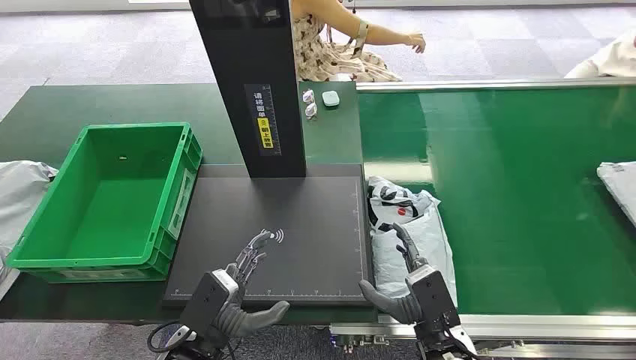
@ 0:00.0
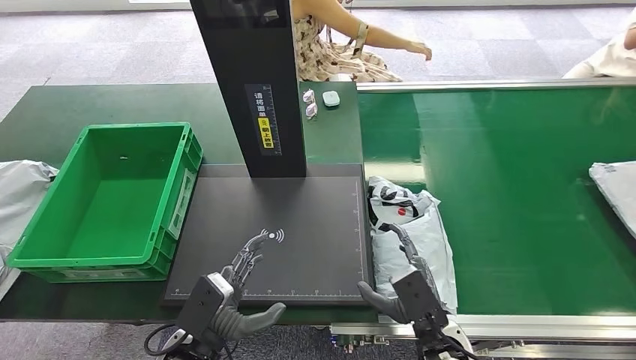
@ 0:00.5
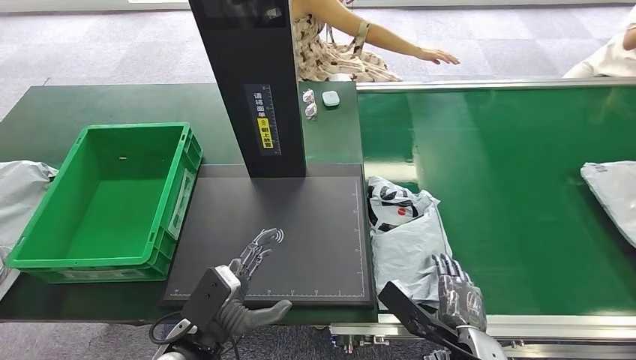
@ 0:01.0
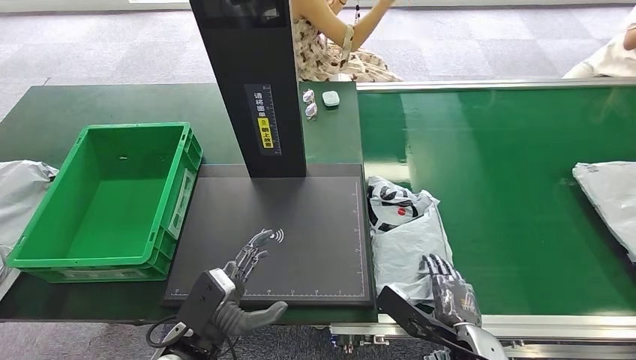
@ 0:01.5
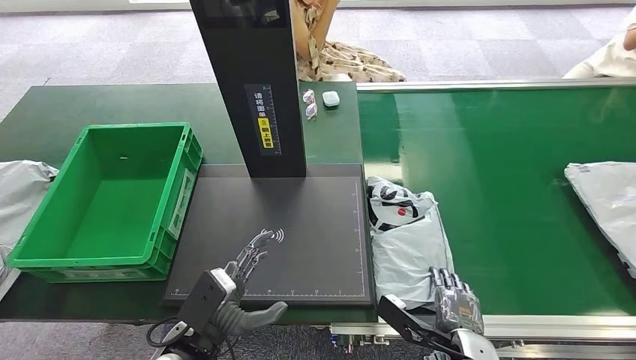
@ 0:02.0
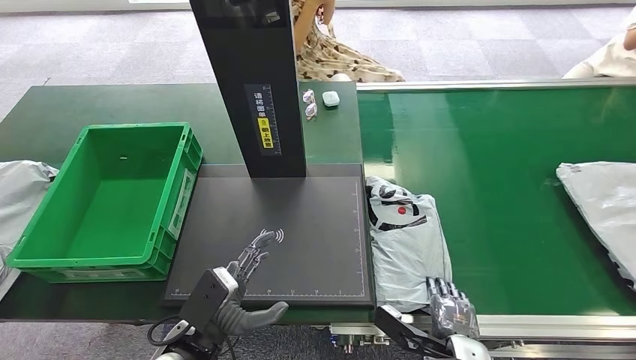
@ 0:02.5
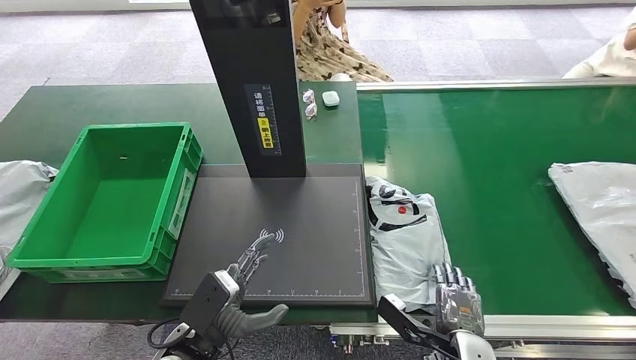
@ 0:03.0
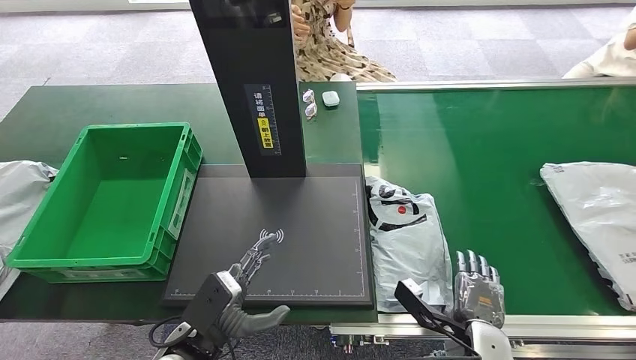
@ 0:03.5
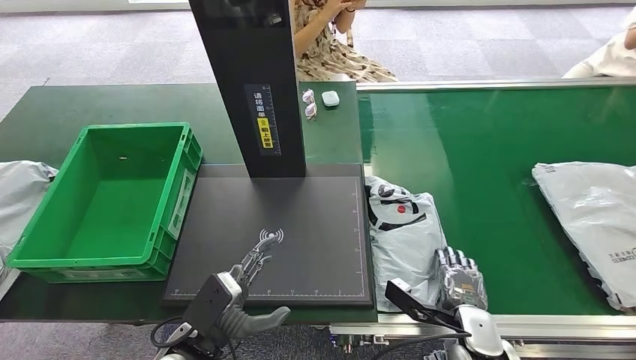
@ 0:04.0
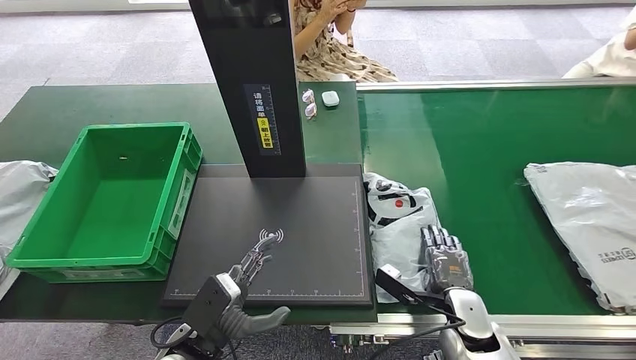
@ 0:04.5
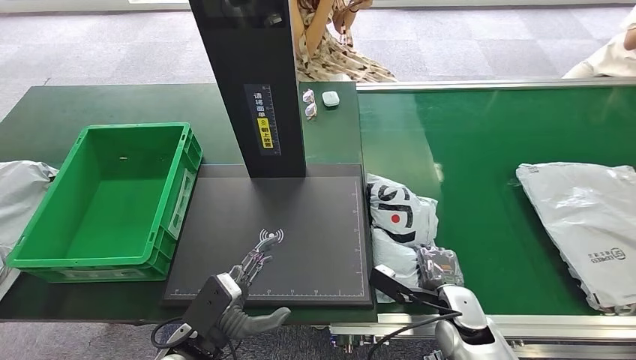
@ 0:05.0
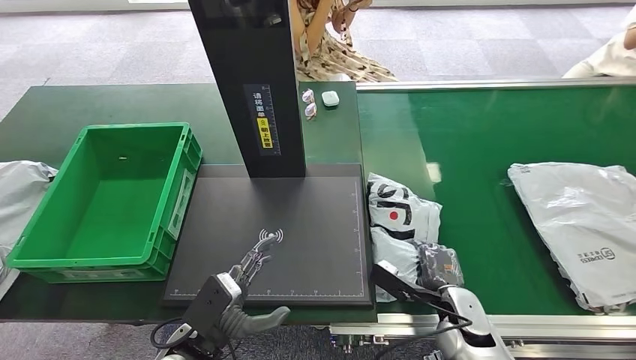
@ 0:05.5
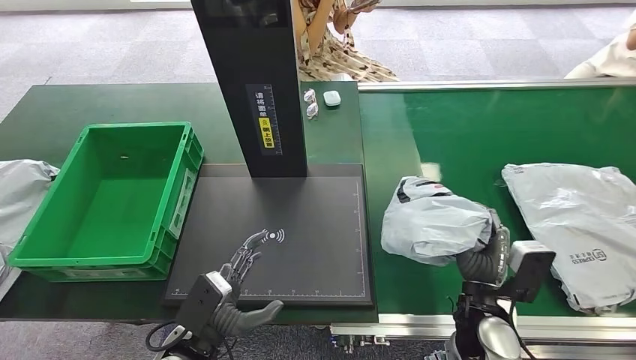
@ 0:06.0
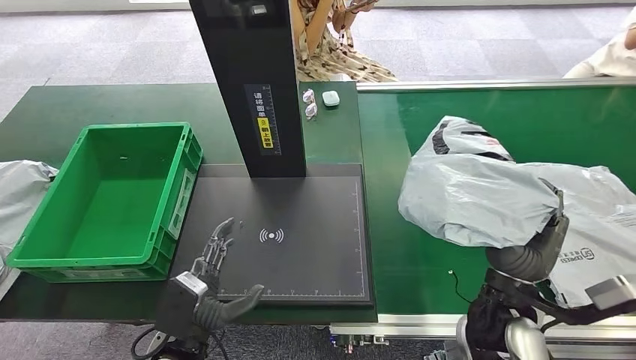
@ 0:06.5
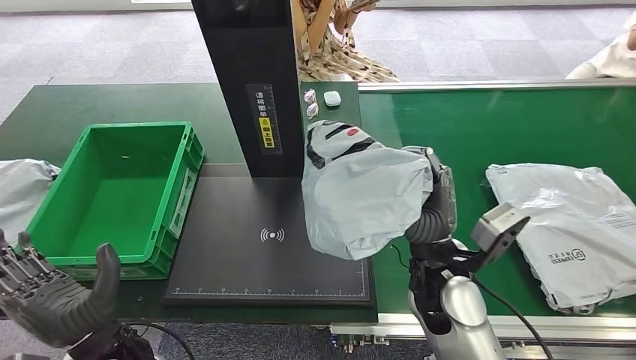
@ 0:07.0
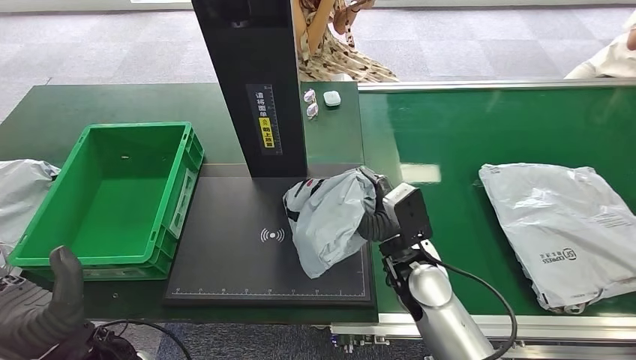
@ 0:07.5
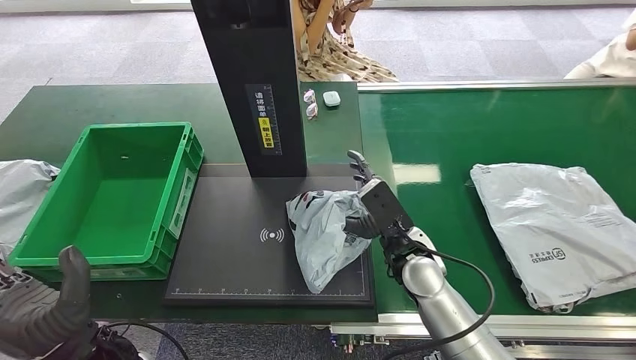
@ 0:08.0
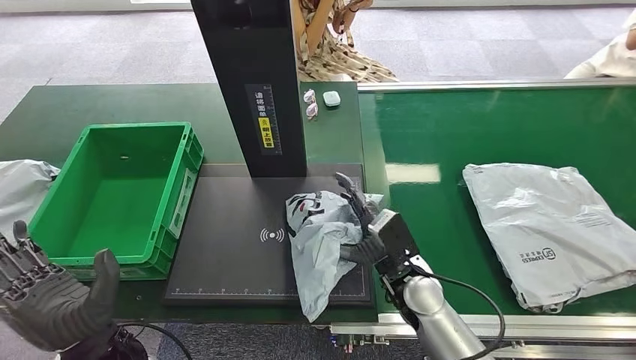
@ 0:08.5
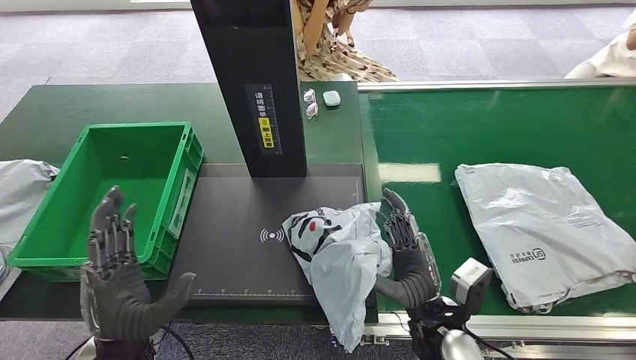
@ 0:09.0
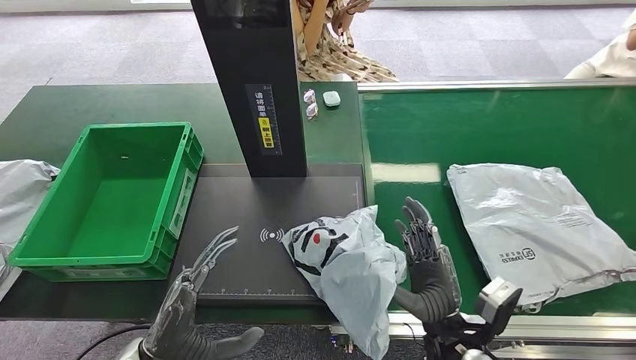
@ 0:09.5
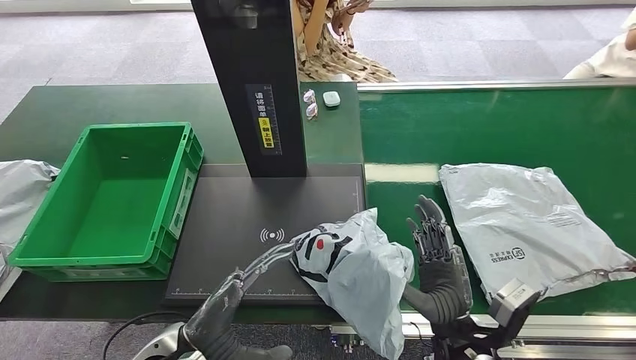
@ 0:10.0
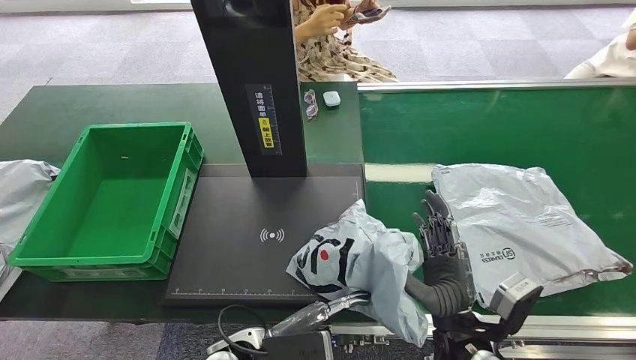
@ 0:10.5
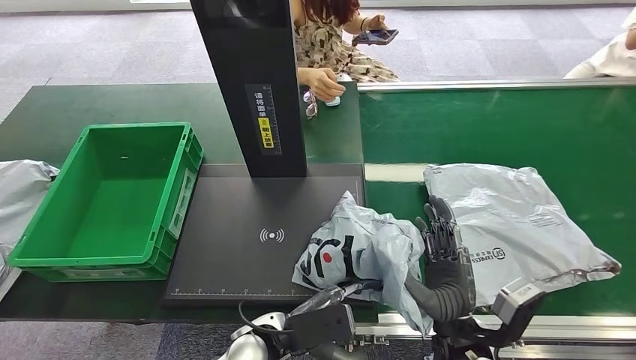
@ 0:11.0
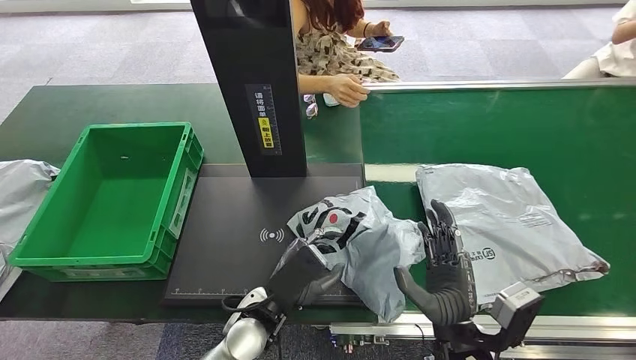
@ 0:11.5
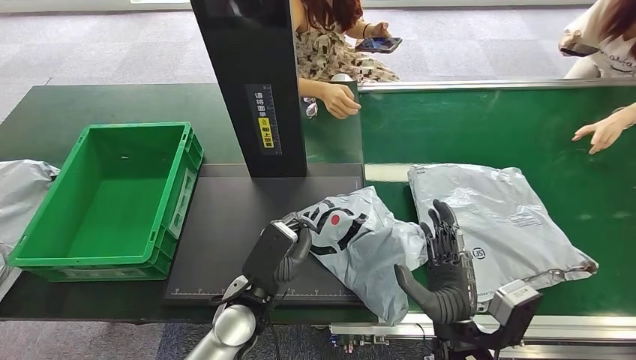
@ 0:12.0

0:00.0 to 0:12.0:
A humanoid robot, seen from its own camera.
Step, 0:00.0 to 0:06.0: Pick up the package from the conveyor belt.
0:02.0 to 0:04.0: The right hand ends up approximately 5 cm from where it was.
0:04.0 to 0:06.0: The right hand shifts by roughly 5 cm.

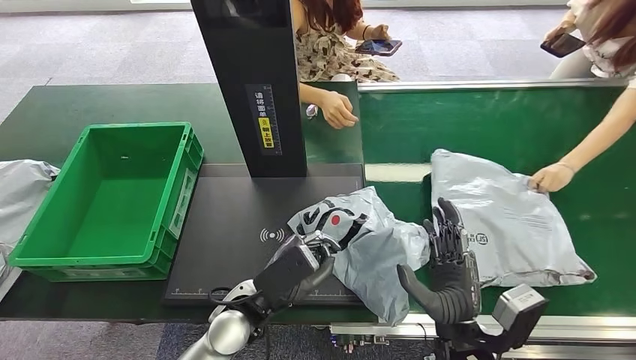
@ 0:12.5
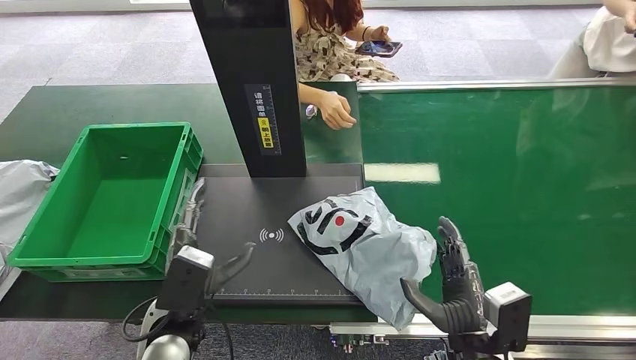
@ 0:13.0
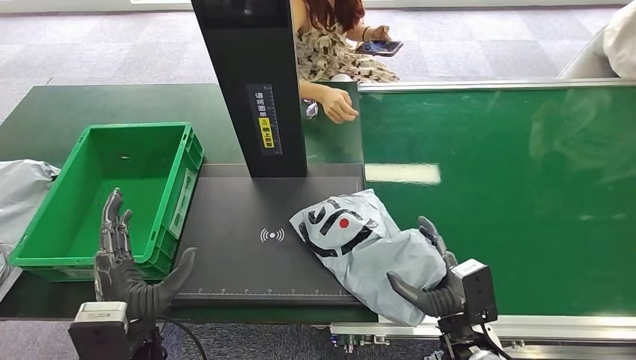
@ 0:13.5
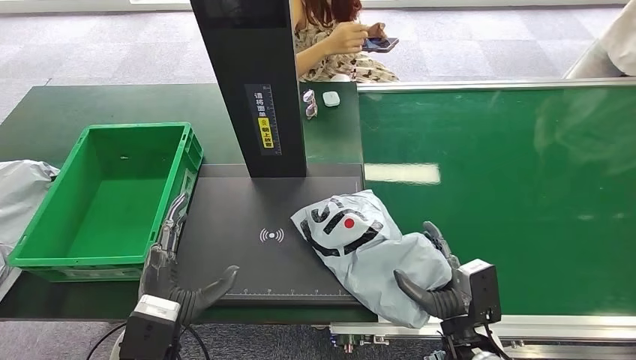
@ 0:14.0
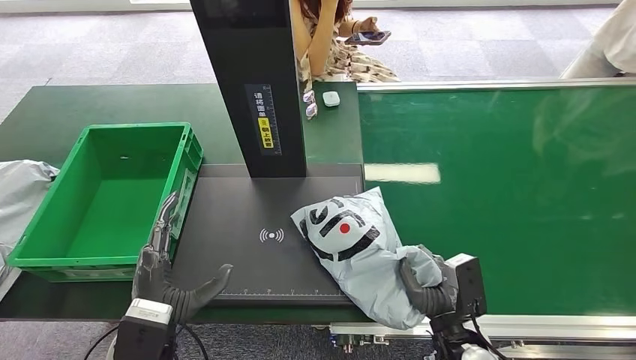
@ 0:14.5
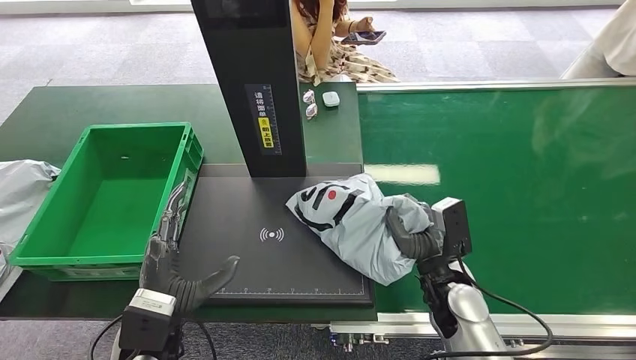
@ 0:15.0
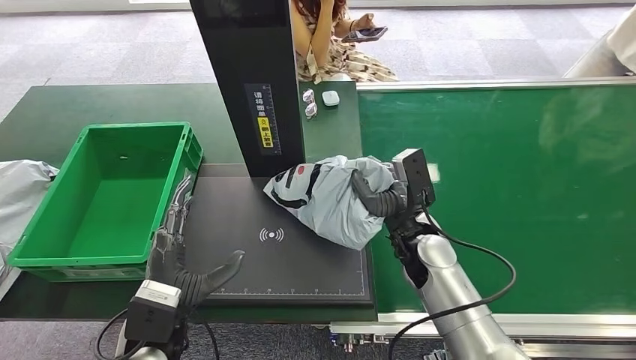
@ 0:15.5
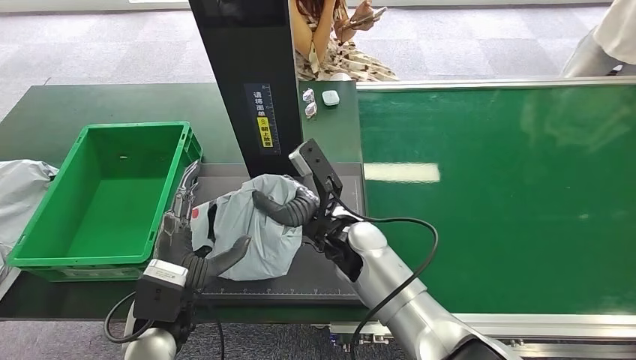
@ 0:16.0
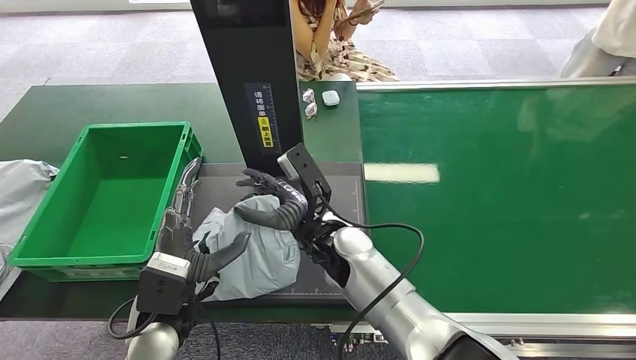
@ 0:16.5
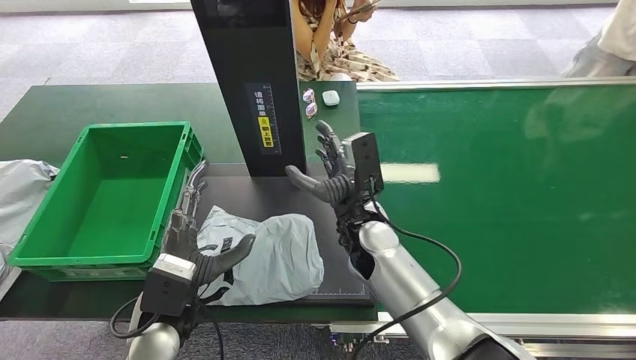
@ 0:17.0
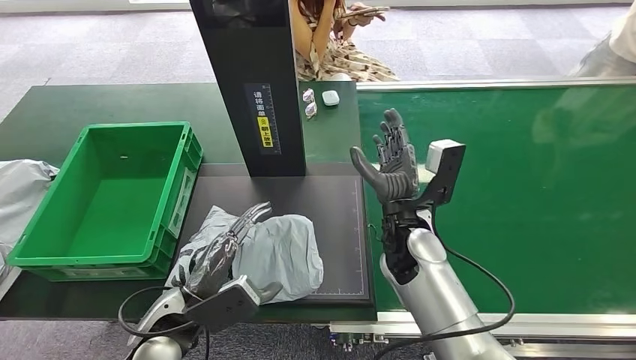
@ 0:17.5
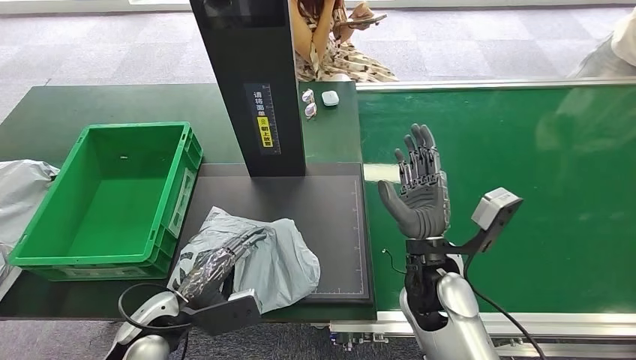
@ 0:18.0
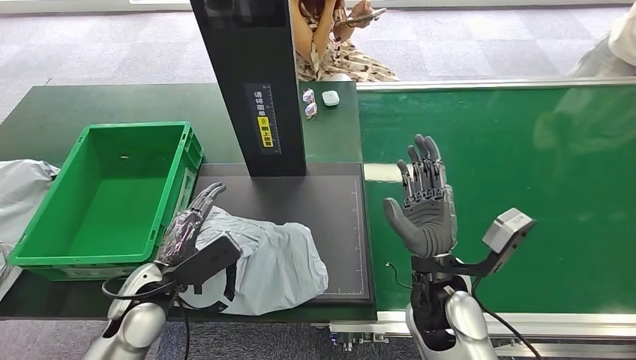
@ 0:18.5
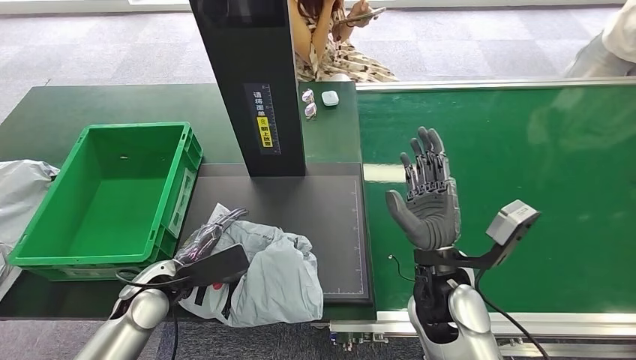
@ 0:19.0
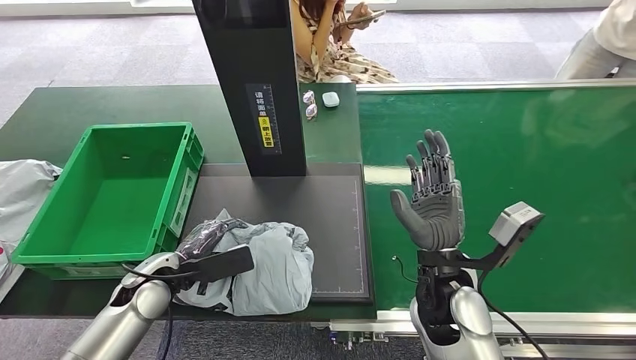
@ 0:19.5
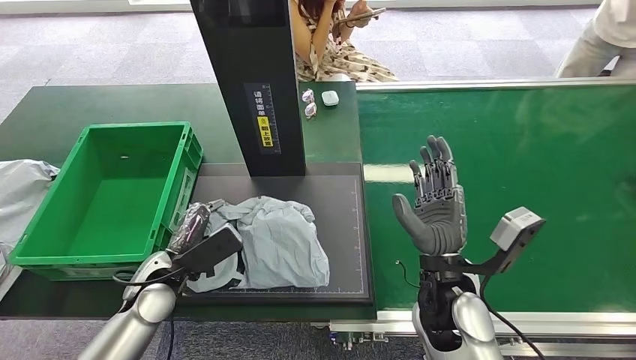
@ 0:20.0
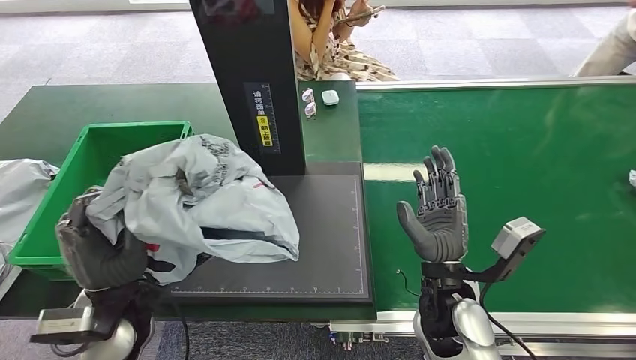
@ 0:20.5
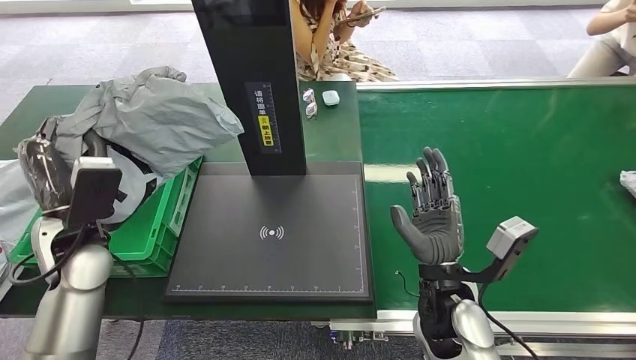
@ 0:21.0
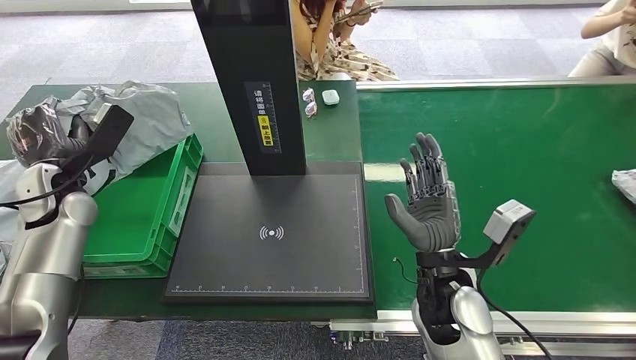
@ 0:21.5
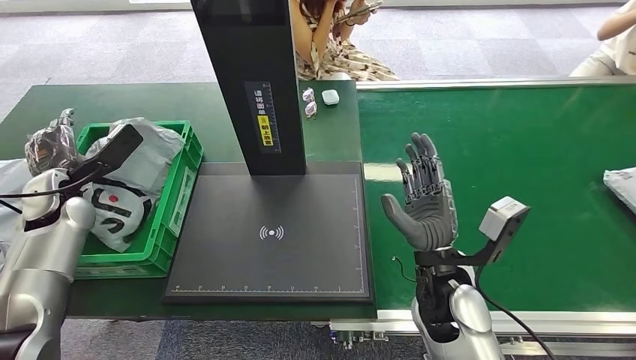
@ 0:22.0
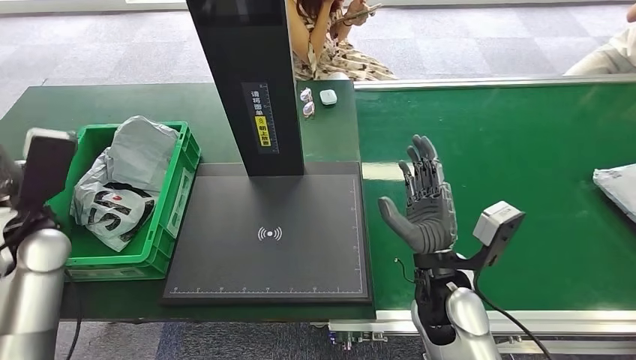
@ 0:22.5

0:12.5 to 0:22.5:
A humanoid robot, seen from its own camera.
Step, 0:14.5 to 0:17.0: Place the package onto the inbound machine.
Step, 0:17.5 to 0:20.5: Pick up the package from the inbound machine.
Step, 0:21.0 to 0:22.5: Place the package into the parcel locker.
0:14.5 to 0:16.5: The left hand travels forward by some 5 cm, while the right hand is displaced to the left, forward and upward by roughly 30 cm.
0:16.5 to 0:18.5: The right hand moves to the right and backward, some 15 cm; the left hand heads to the left, covering some 5 cm.
